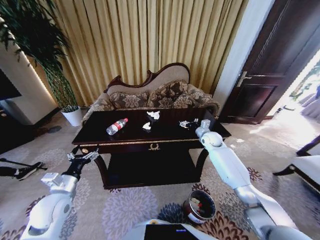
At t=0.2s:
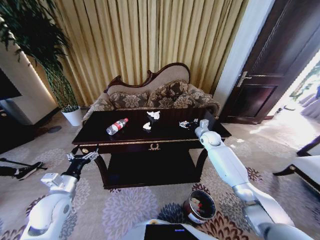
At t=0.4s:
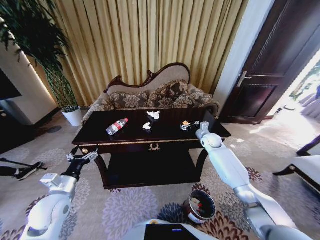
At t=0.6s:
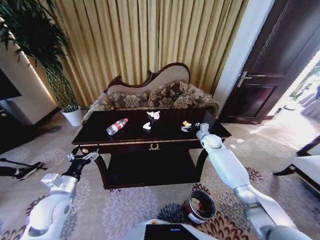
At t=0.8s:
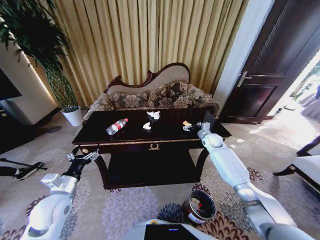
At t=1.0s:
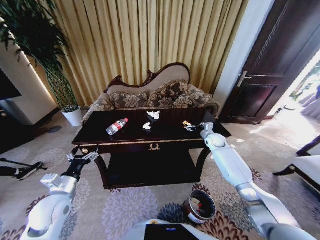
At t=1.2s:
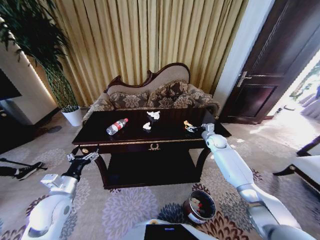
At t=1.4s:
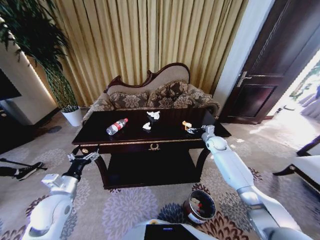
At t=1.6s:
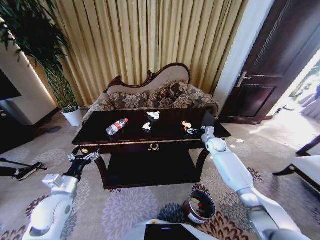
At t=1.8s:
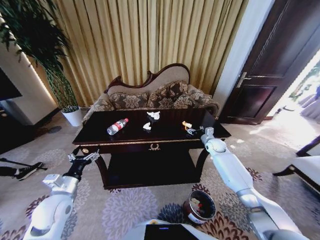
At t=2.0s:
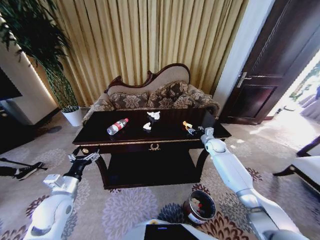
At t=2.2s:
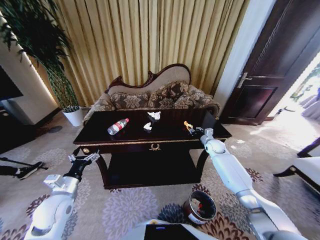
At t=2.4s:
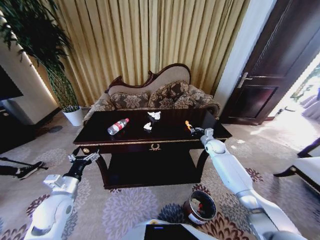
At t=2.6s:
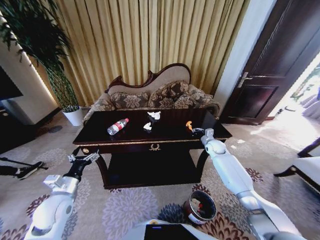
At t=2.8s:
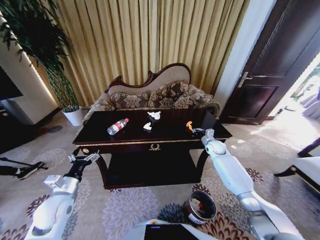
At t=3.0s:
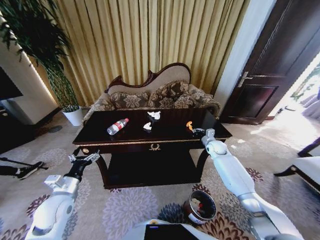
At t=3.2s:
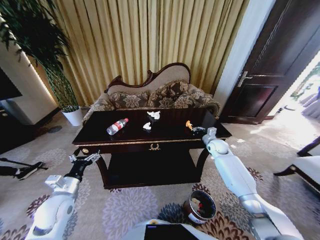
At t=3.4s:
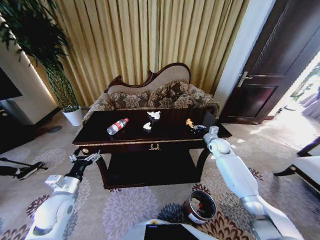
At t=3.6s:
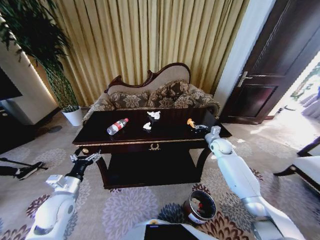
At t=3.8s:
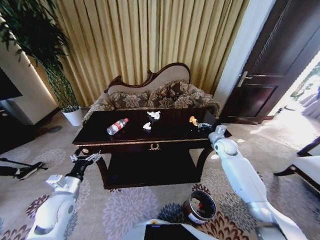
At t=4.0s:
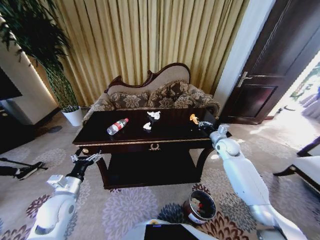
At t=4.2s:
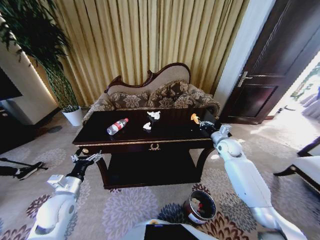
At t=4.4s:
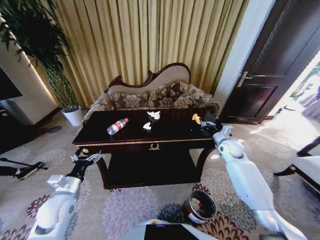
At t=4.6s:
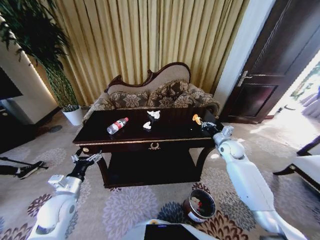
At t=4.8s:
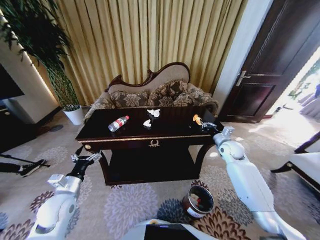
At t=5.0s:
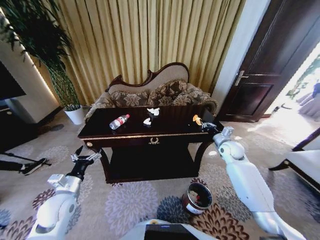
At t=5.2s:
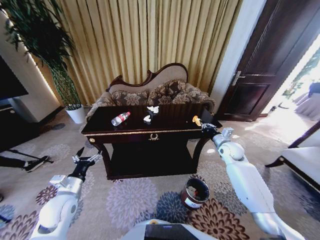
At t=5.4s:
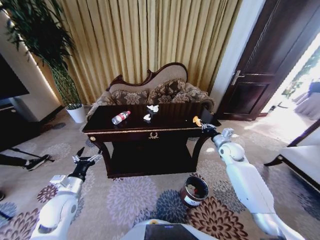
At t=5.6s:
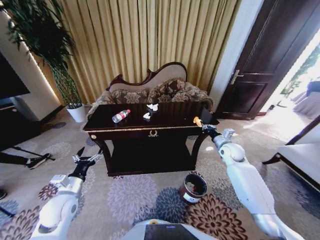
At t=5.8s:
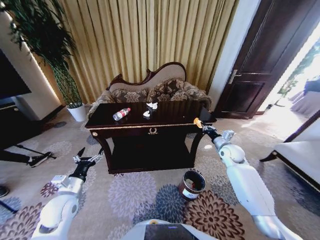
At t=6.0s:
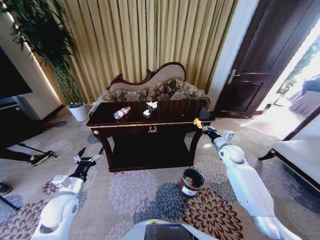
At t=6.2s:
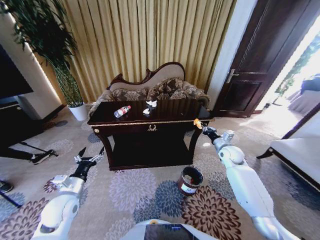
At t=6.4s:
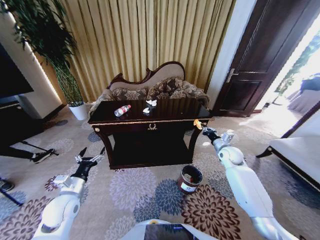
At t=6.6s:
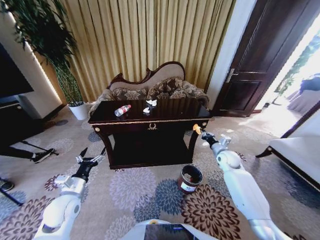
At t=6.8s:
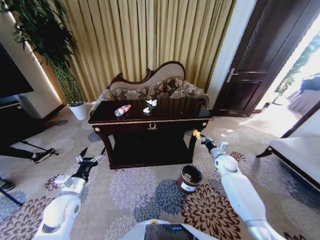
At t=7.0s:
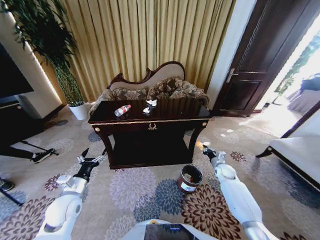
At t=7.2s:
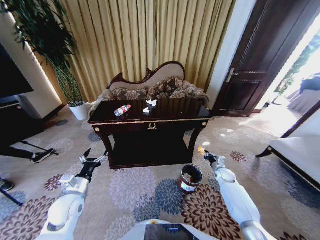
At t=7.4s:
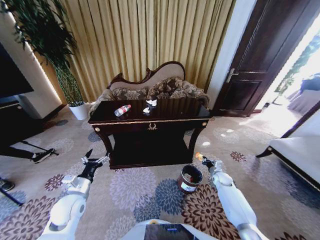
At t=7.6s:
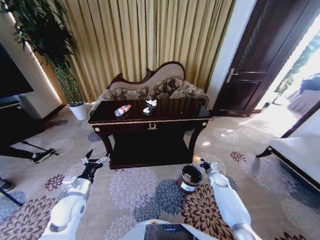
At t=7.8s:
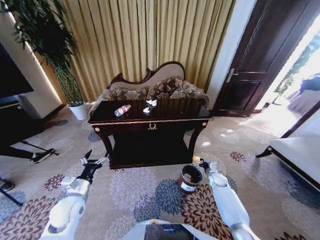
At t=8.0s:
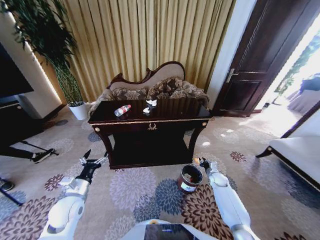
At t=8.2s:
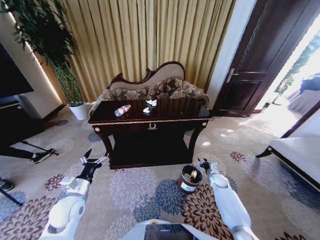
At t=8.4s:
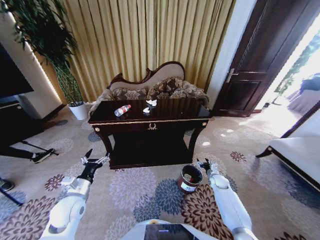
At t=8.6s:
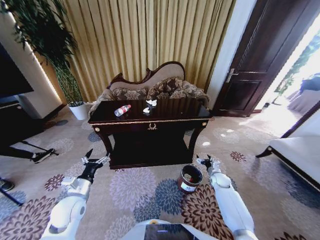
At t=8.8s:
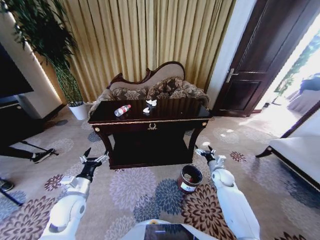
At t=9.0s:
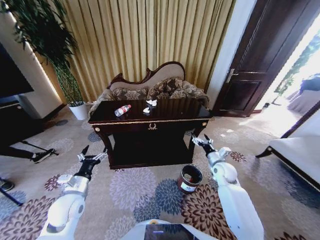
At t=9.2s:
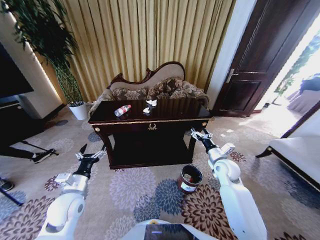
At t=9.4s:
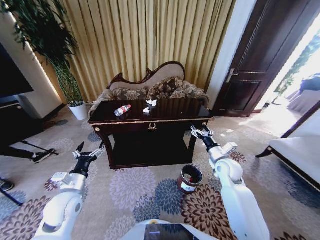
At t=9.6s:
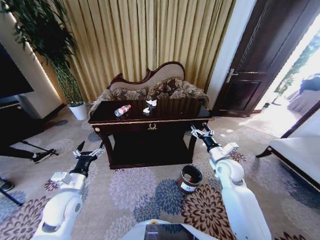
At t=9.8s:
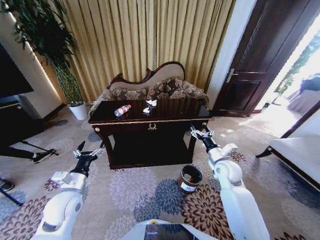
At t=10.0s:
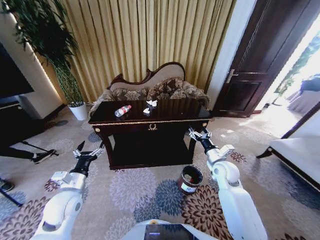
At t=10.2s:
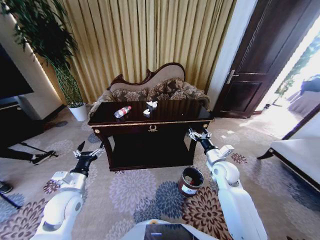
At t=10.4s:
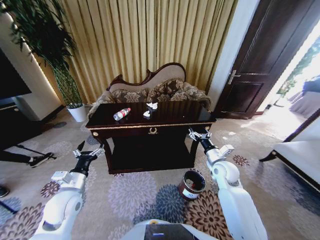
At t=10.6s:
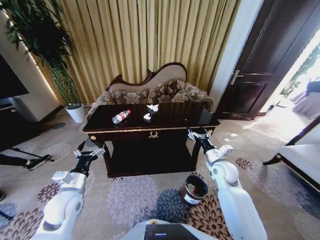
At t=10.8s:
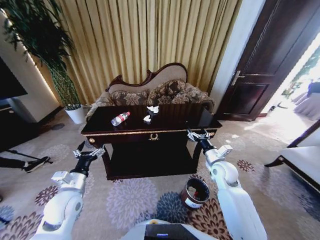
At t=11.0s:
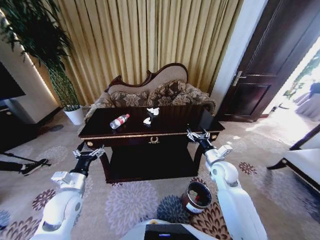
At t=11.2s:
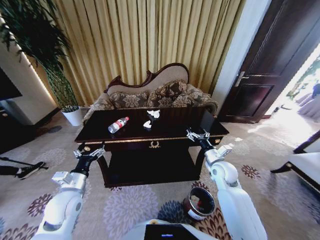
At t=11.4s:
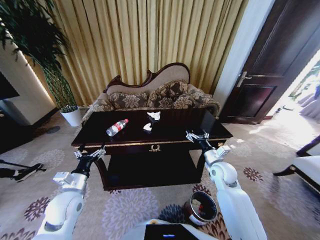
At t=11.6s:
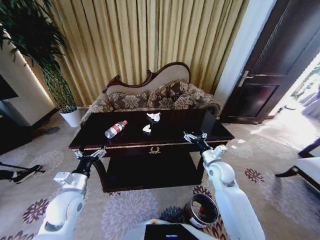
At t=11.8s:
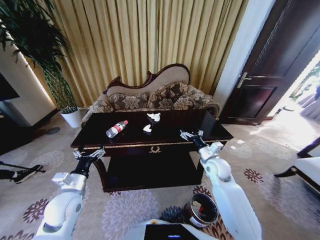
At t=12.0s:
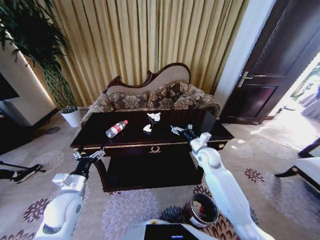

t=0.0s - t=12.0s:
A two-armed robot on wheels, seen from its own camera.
Task of the whole recording: Move to the front of the table and place the trash on the table into the trash bin.
t=0.0s - t=1.6s: The right gripper shifts approximately 5 cm downward.
t=1.6s - t=3.0s: The right gripper closes its fingers.
t=3.0s - t=4.4s: The right gripper heads upward and backward, covering approximately 10 cm.
t=6.0s - t=7.6s: The right gripper goes approximately 20 cm downward.
t=7.6s - t=9.0s: The right gripper moves upward, approximately 15 cm, and opens.
t=9.0s - t=10.4s: The right gripper goes roughly 5 cm upward.
t=10.4s - t=12.0s: The right gripper goes about 5 cm forward.

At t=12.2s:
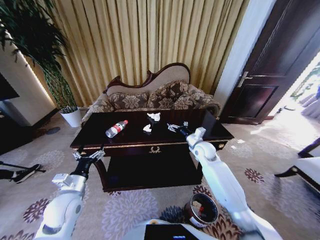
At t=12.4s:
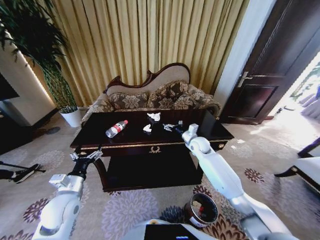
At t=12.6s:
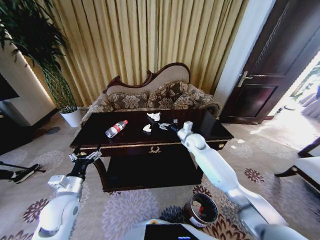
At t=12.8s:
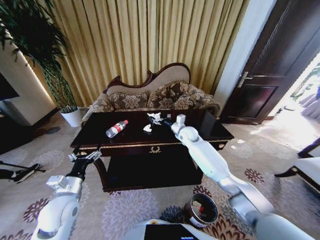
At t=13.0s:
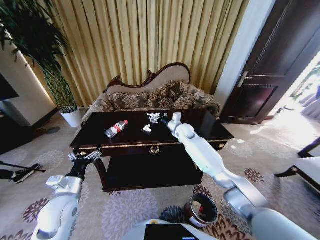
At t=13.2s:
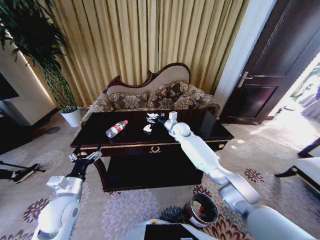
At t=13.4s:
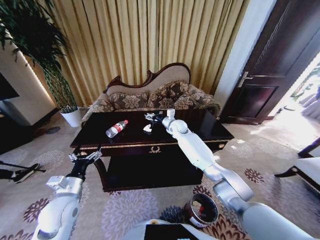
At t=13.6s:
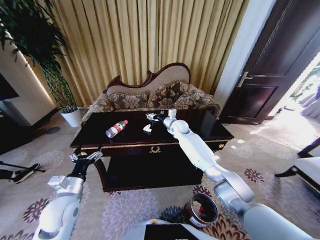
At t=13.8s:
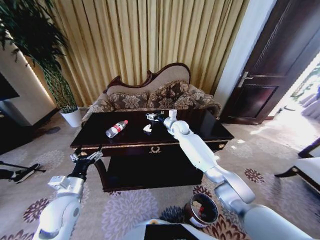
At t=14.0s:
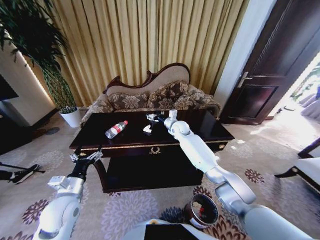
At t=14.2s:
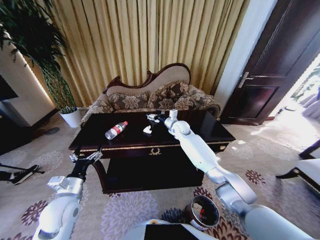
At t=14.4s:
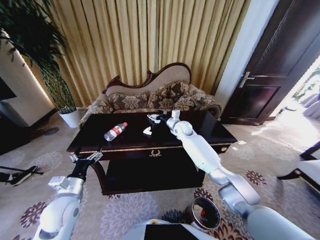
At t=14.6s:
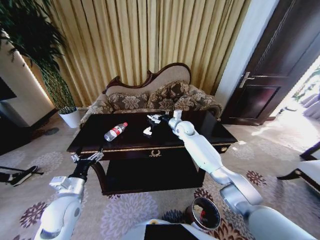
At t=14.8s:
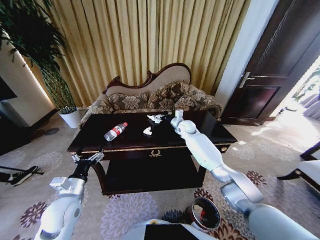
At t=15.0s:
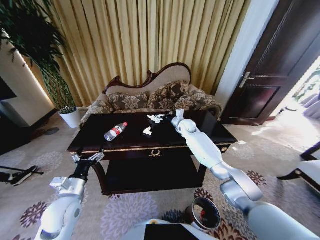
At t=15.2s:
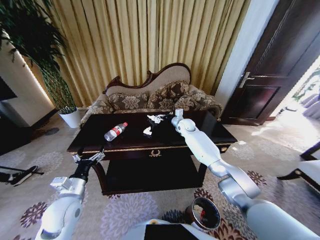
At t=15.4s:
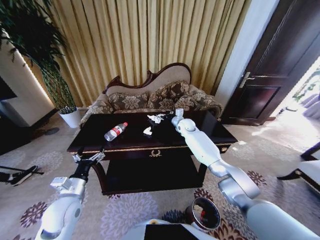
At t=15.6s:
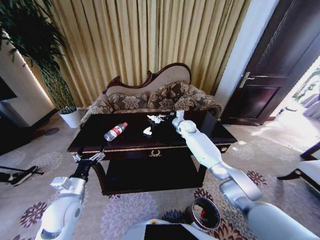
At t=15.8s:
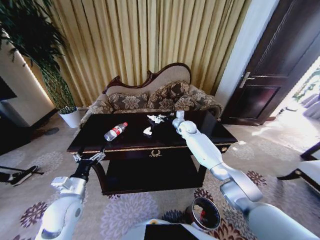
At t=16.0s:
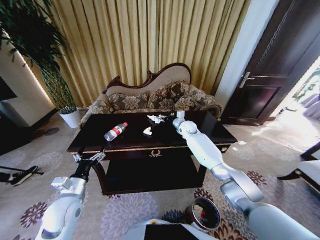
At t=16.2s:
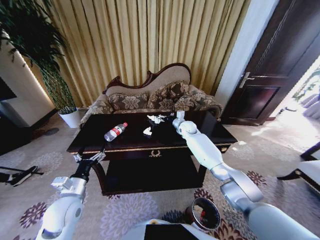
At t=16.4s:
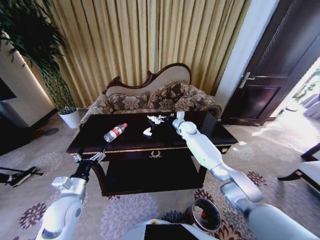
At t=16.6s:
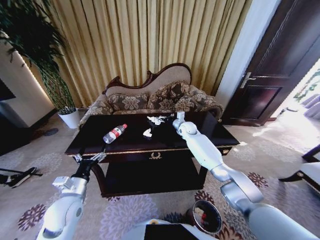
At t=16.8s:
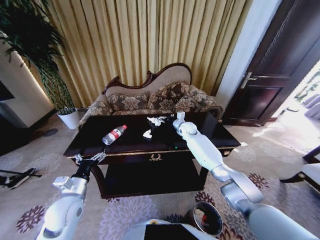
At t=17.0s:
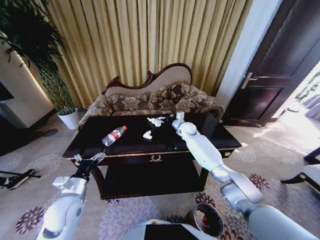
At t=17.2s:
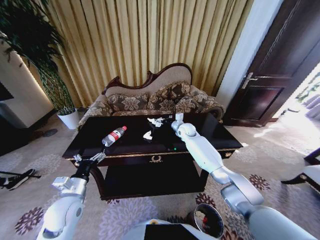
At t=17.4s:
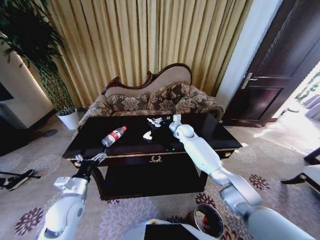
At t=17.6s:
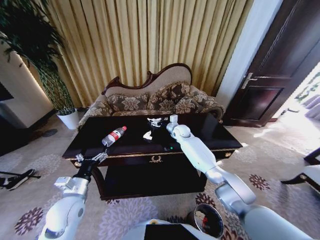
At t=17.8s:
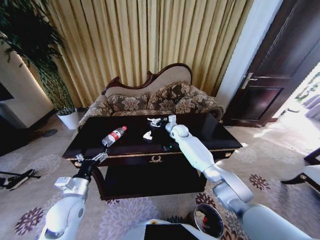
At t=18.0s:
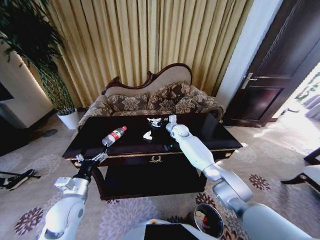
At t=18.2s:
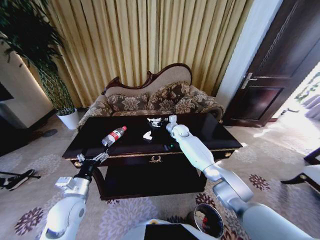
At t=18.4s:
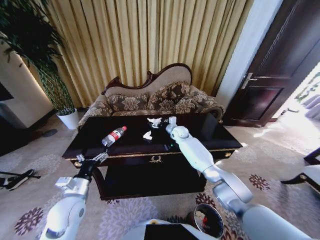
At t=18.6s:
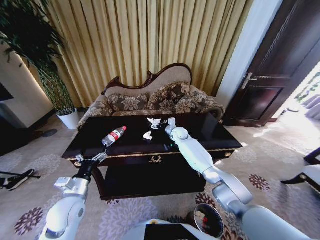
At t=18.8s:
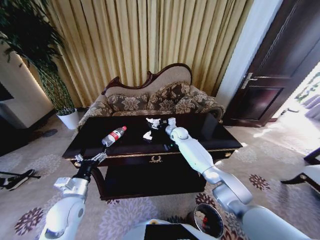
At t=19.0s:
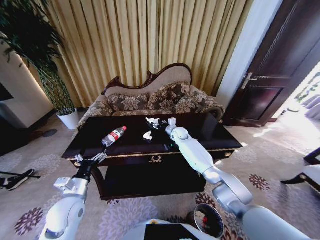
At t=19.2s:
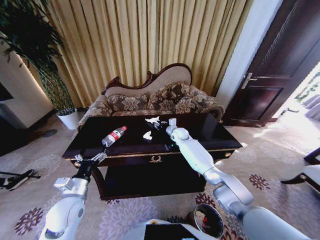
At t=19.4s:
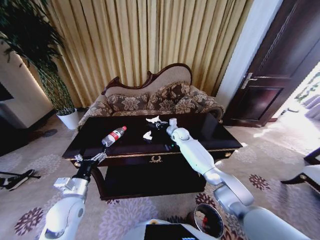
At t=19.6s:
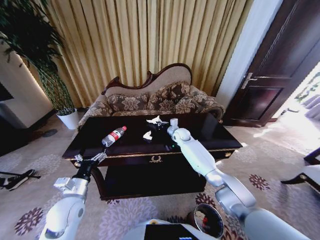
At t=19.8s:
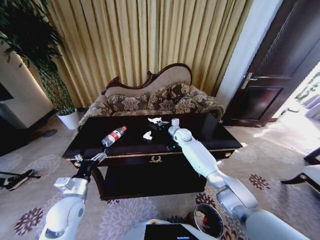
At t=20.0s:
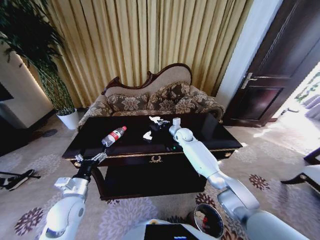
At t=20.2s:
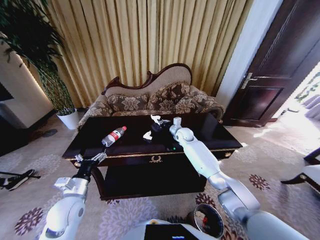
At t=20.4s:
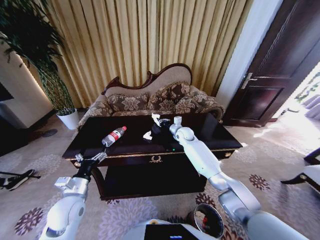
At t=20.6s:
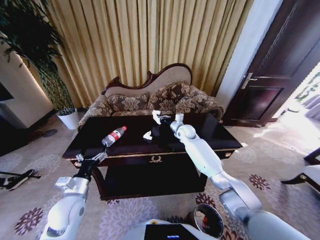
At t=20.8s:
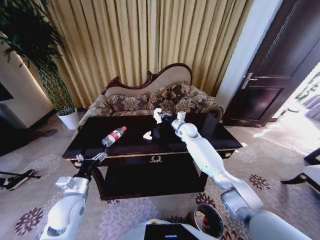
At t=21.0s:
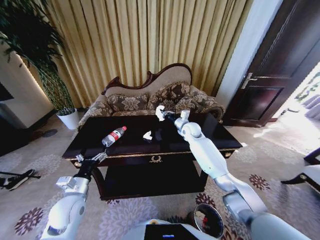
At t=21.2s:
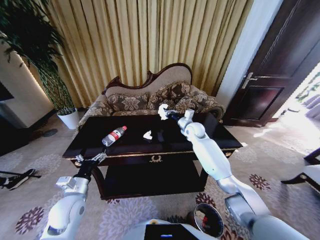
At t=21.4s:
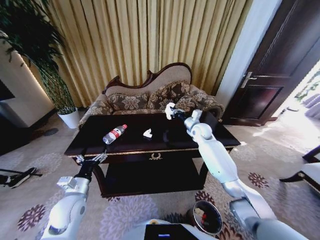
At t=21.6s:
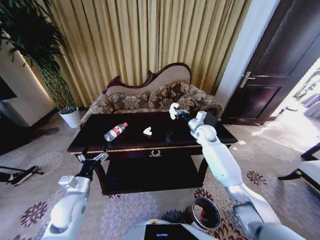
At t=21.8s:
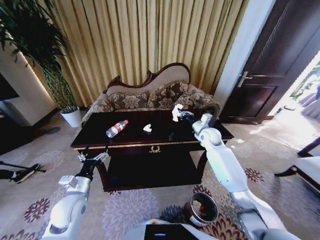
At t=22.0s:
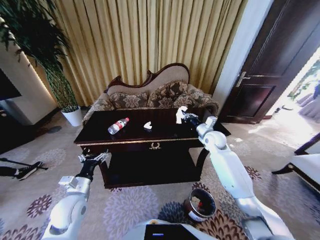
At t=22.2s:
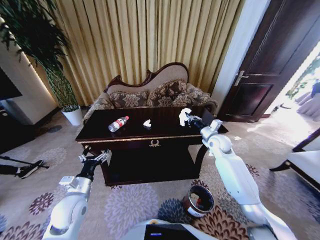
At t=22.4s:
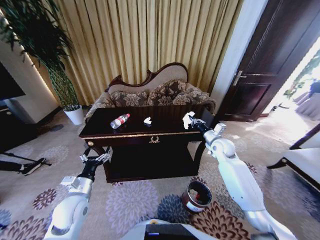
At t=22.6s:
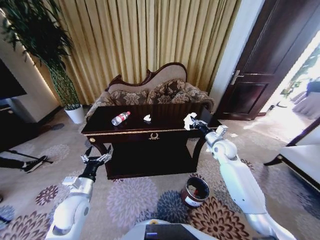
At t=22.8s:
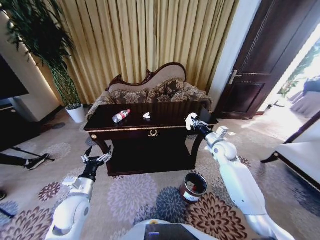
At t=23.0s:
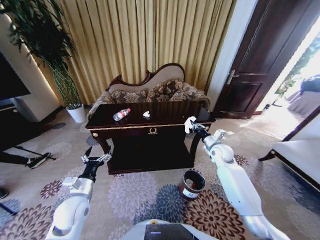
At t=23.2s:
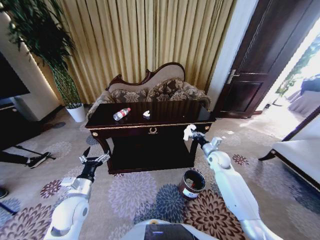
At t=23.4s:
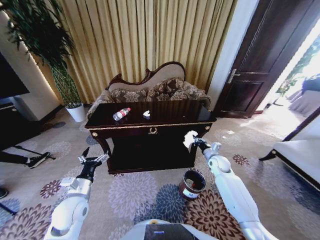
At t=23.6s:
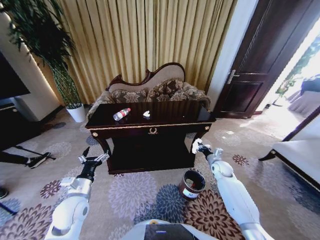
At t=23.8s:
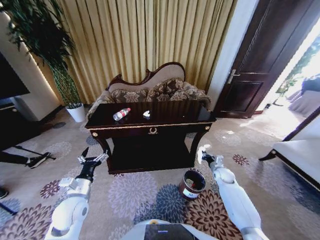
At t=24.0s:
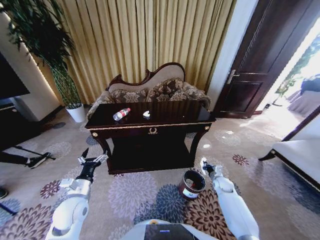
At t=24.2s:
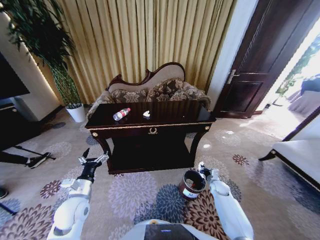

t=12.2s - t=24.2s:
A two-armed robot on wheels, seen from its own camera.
Task of the whole recording: Move to the front of the table and place the trash on the table into the trash bin.
t=12.2s - t=13.8s: The right gripper shifts about 15 cm forward and to the left.
t=13.8s - t=15.2s: The right gripper ends up approximately 5 cm from where it was.
t=15.2s - t=18.2s: The grippers make only small movements.
t=18.2s - t=19.8s: The right gripper closes.
t=19.8s - t=21.2s: The right gripper moves upward, about 5 cm.
t=21.2s - t=22.6s: The right gripper shifts approximately 15 cm to the right and backward.
t=22.6s - t=24.2s: The right gripper moves downward, some 25 cm.
